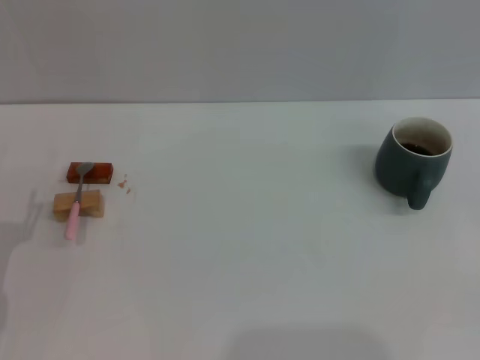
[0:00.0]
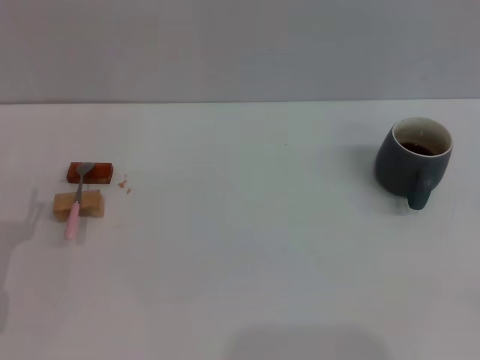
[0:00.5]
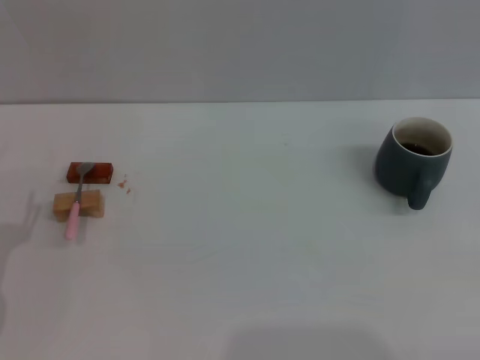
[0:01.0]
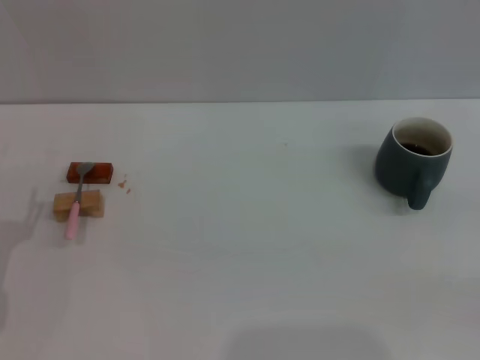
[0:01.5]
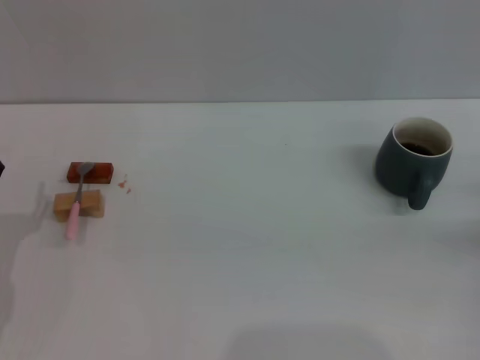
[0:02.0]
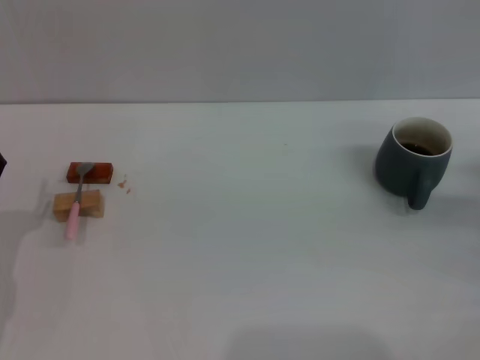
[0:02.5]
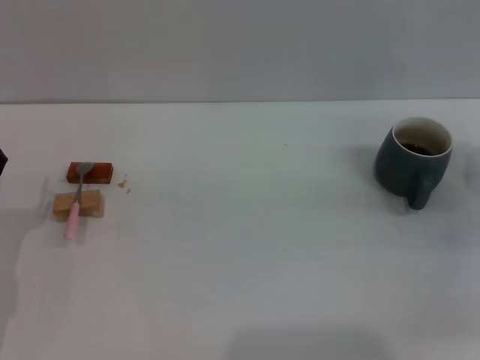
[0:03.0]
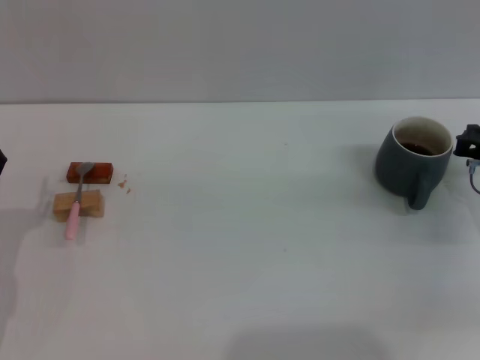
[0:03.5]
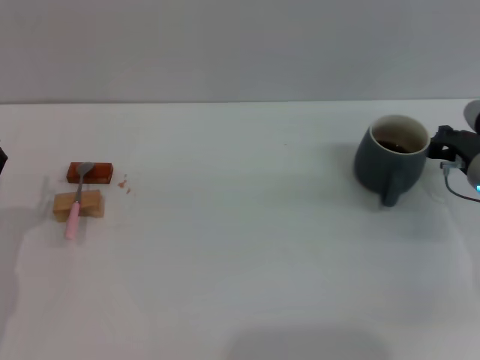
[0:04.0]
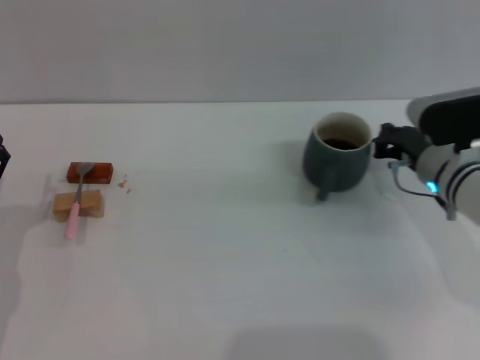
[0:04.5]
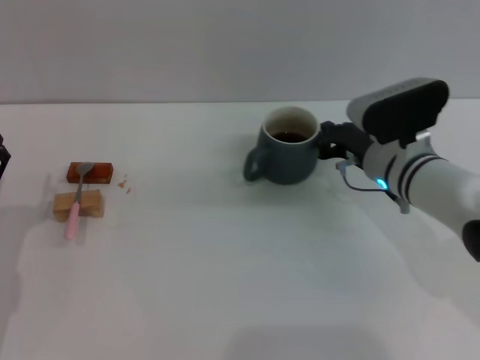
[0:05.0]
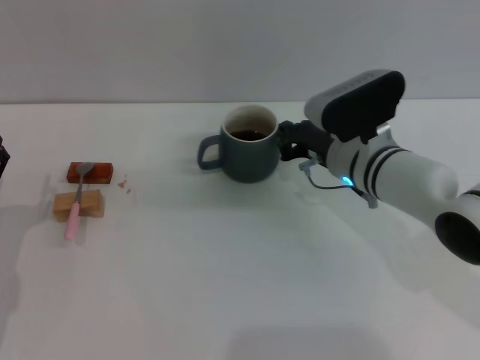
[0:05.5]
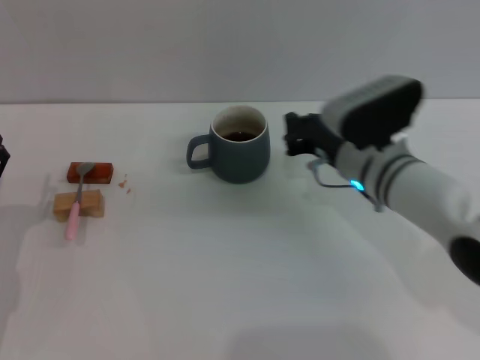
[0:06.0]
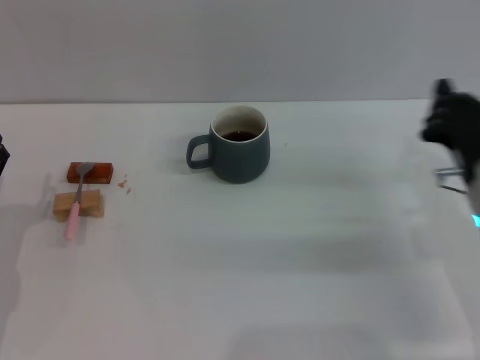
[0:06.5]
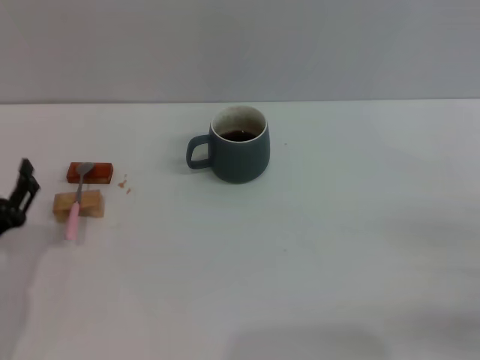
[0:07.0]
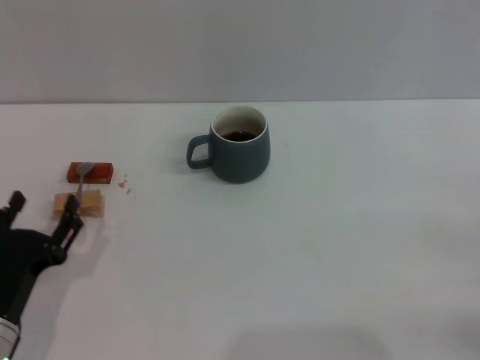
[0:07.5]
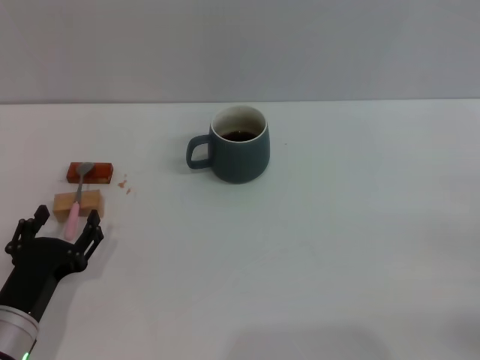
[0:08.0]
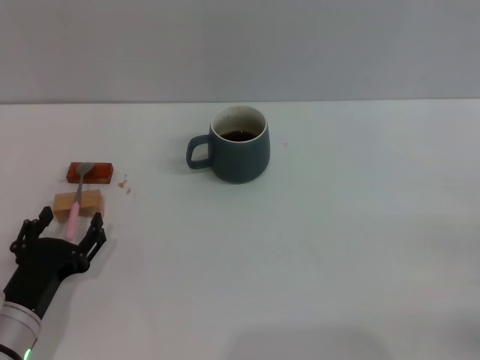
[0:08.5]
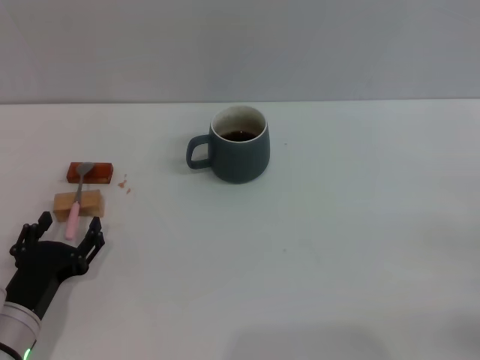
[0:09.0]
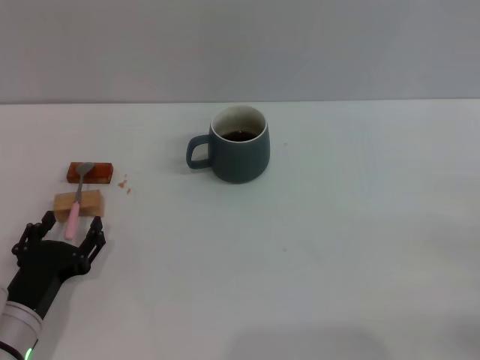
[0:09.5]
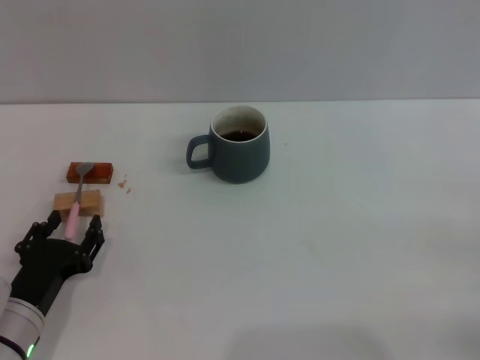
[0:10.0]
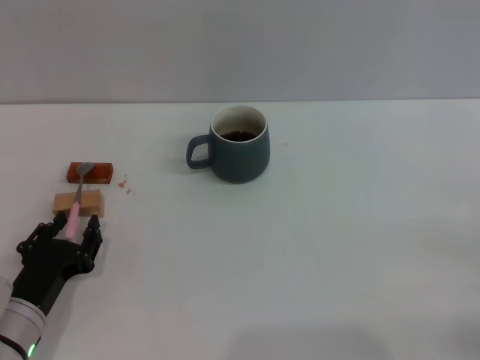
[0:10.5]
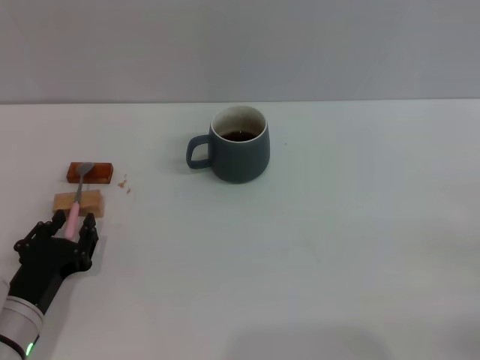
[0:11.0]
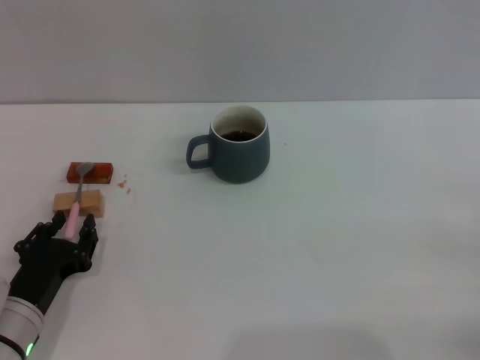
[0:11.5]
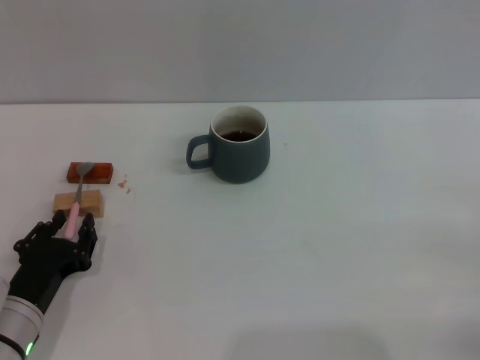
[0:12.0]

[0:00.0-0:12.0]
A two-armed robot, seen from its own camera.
Task of the whole recording: Move the grey cup to the center, lift the pink spoon, stir it three times in the cup, and put the spoon into the cup.
Step, 0:00.0 to 0:06.0: Move the cup with coffee to the center of view with the right gripper.
0:00.0 to 0:02.0: The right gripper travels forward by approximately 15 cm.
0:02.0 to 0:04.0: The right gripper shifts approximately 15 cm to the left and forward.
0:04.0 to 0:06.0: The right gripper travels to the left by approximately 15 cm.
0:06.0 to 0:08.0: The left gripper moves to the right, approximately 5 cm; the right gripper heads to the right and backward, covering some 25 cm.
0:08.0 to 0:10.0: The grippers make only small movements.
0:10.0 to 0:12.0: The two grippers keep their place.

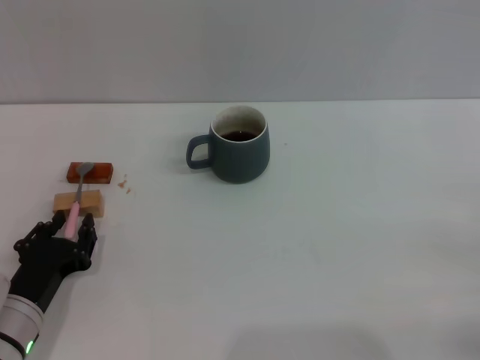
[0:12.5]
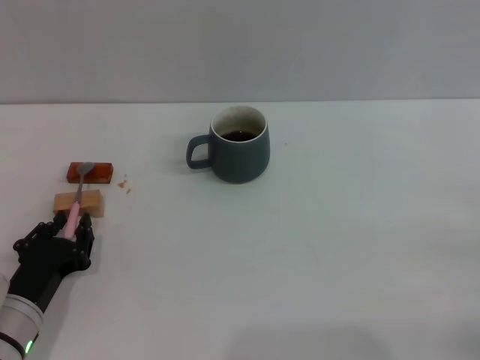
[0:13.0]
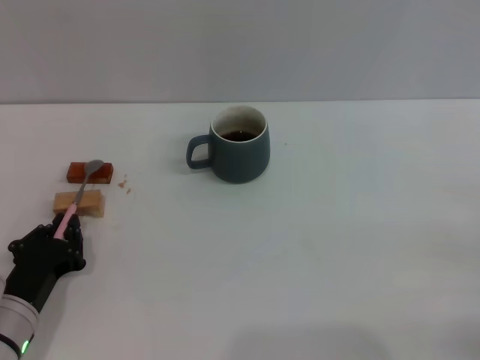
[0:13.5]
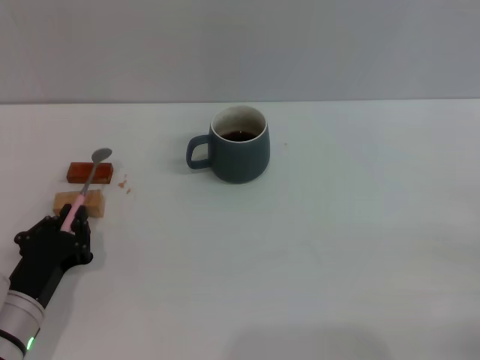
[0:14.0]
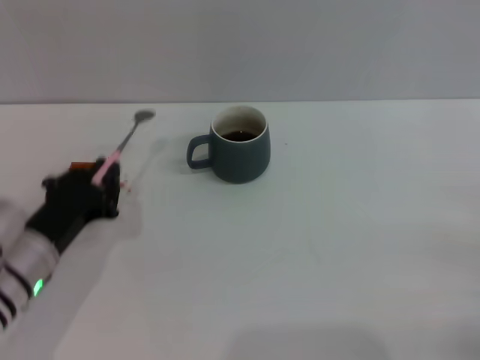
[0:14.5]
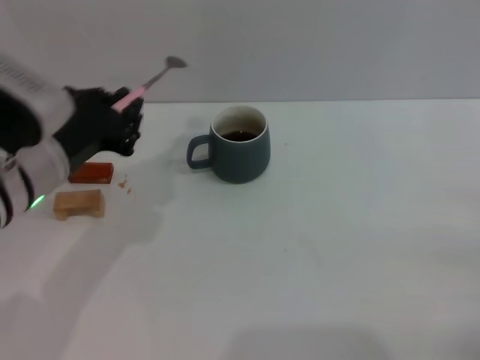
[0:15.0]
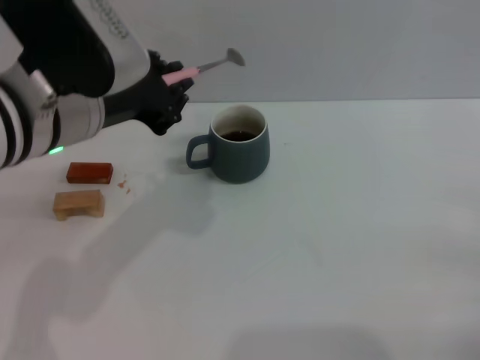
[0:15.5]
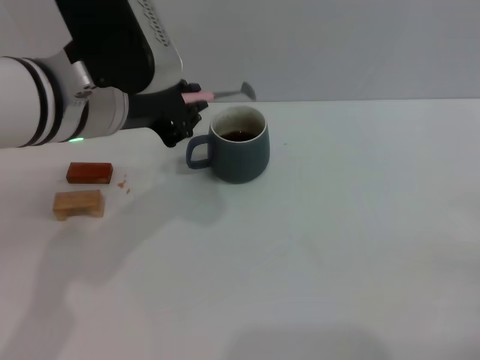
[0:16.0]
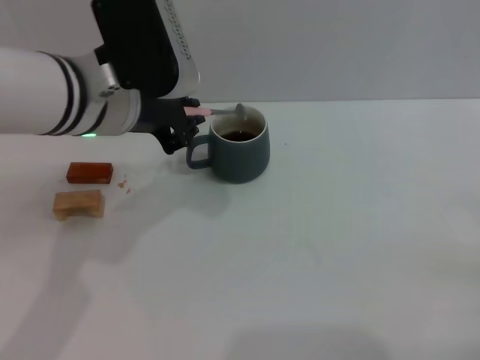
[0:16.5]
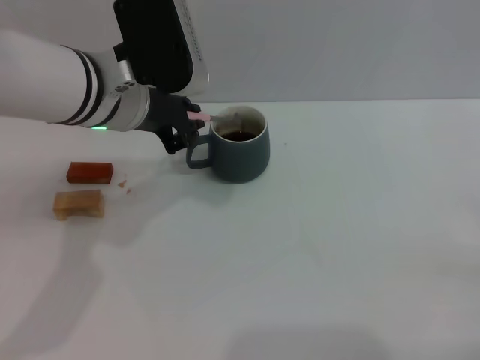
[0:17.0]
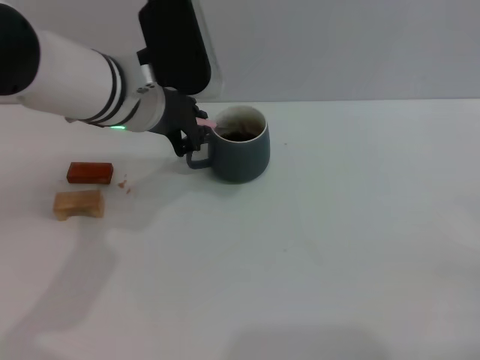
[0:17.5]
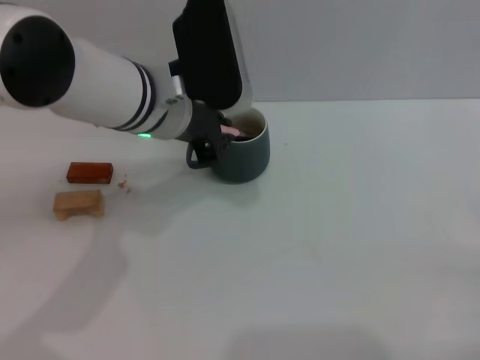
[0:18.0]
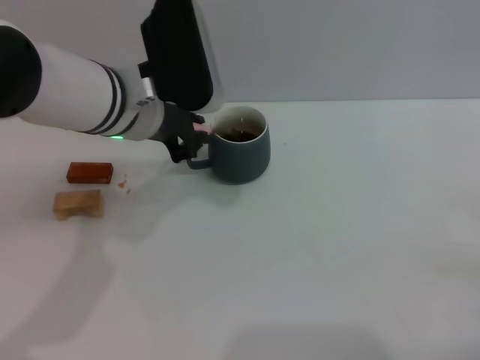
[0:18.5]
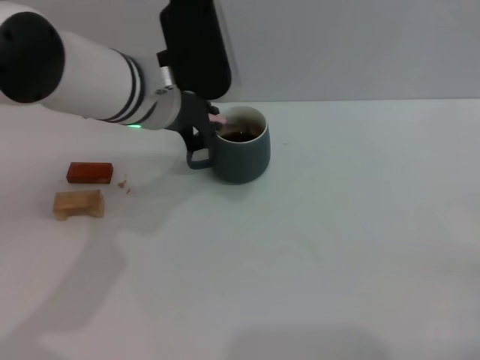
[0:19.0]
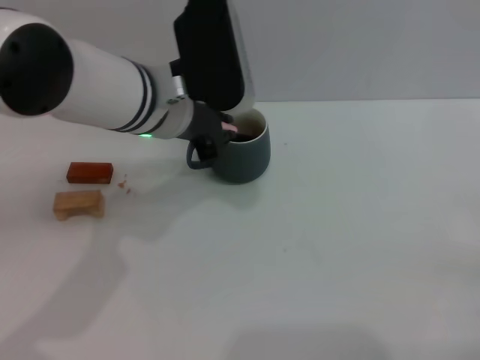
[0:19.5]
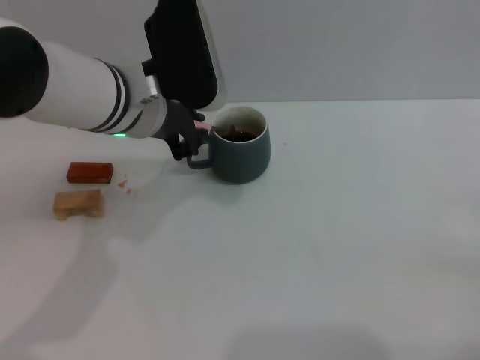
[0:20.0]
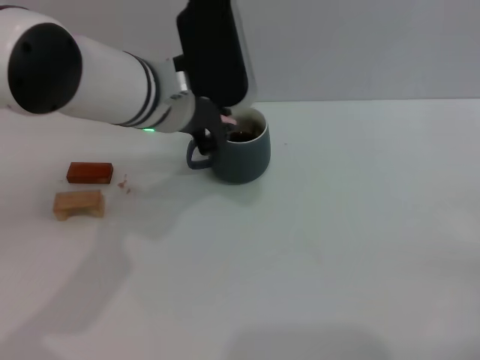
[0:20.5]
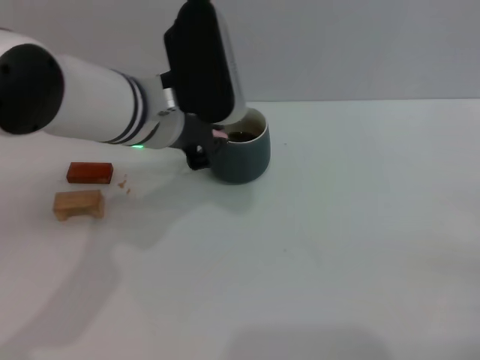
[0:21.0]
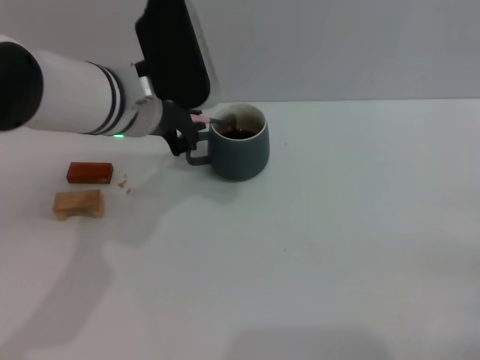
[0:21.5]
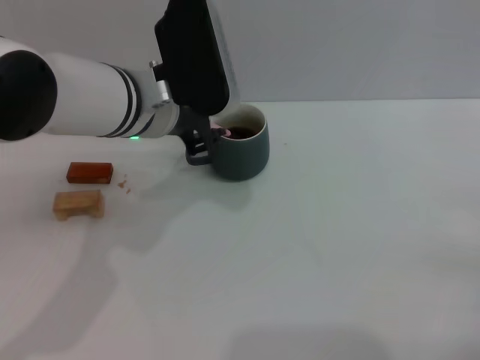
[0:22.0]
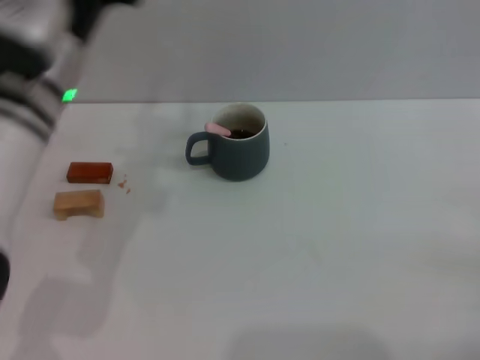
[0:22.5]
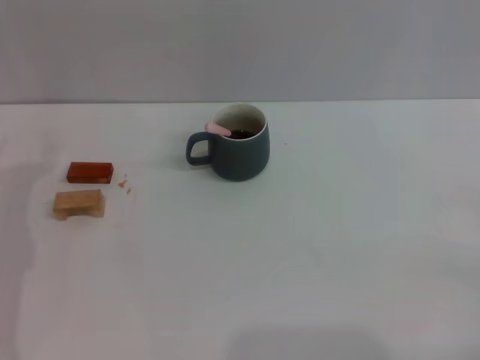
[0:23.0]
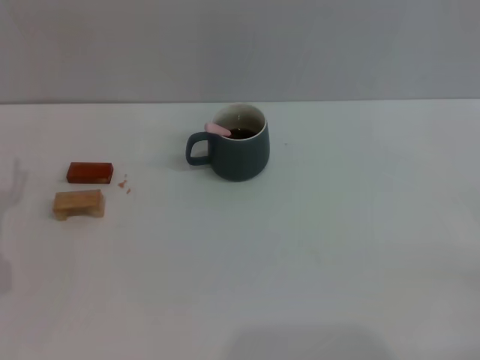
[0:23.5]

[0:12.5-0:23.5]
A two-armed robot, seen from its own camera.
Task of the whole recording: Move the grey cup to the center, lift the pink spoon, stir it three times in the cup, and put the spoon into the cup.
Step, 0:14.5 to 0:22.0: Stir the coffee in the cup with the left gripper.
0:12.5 to 0:14.5: The left gripper goes about 5 cm upward, and closes its fingers.
0:14.5 to 0:16.0: The left gripper heads upward and to the right, covering about 20 cm.
0:16.0 to 0:18.0: The left gripper shifts roughly 5 cm forward.
0:18.0 to 0:21.5: The grippers make only small movements.
0:21.5 to 0:23.5: The left gripper travels to the left, downward and backward by about 25 cm, and opens.

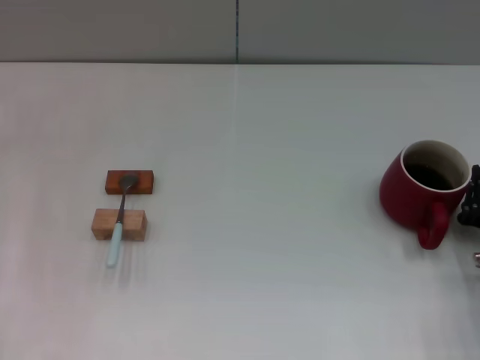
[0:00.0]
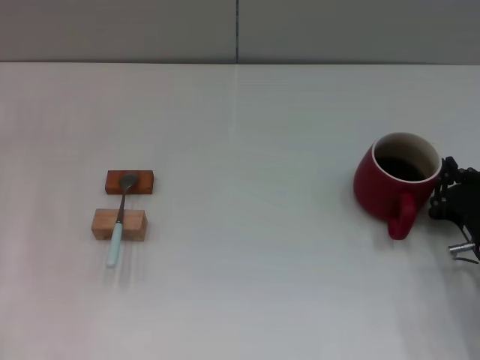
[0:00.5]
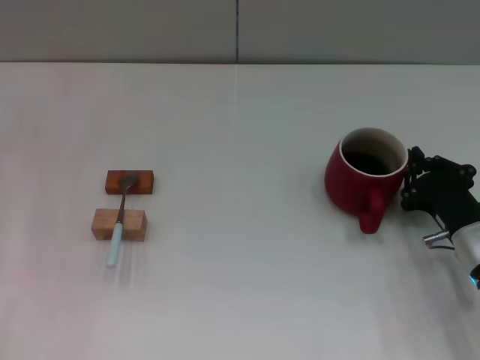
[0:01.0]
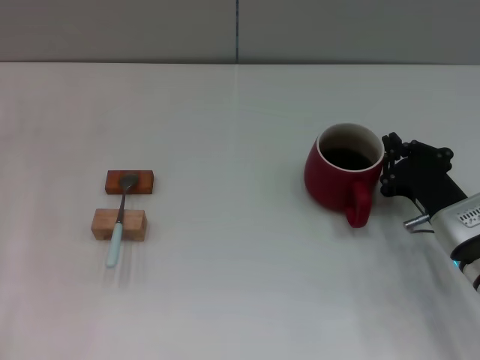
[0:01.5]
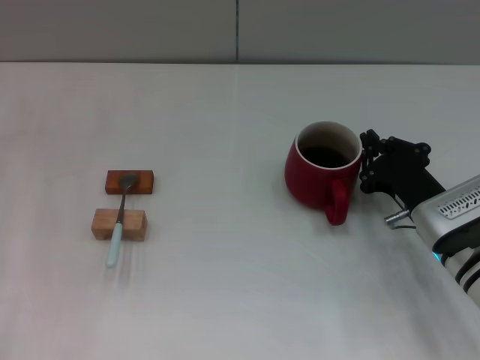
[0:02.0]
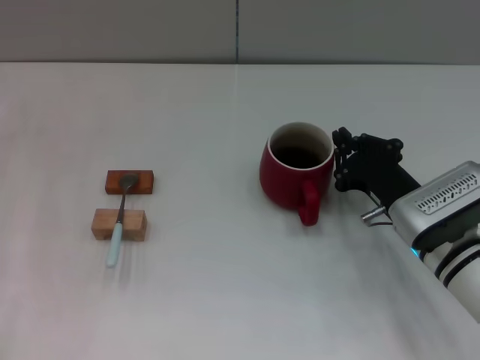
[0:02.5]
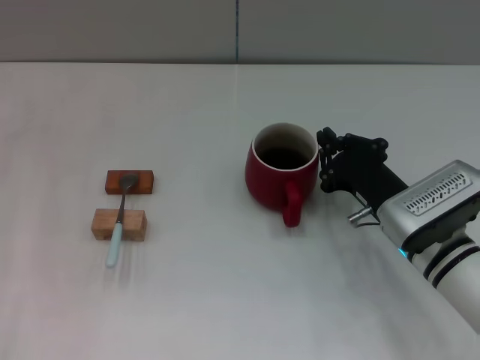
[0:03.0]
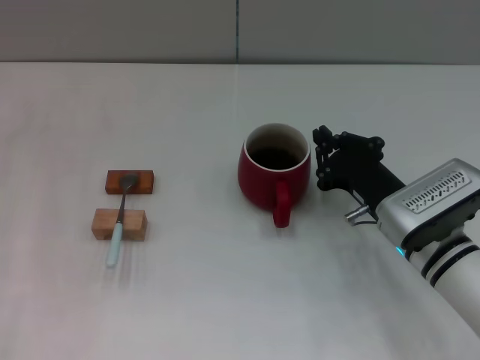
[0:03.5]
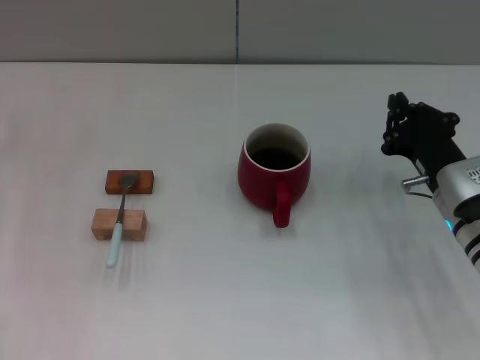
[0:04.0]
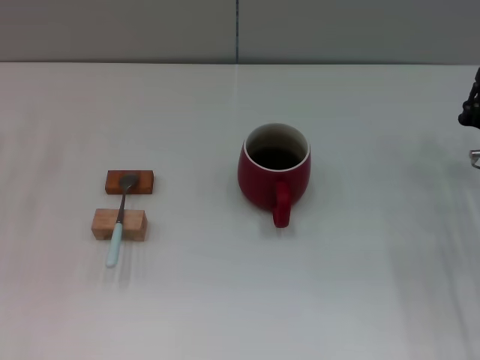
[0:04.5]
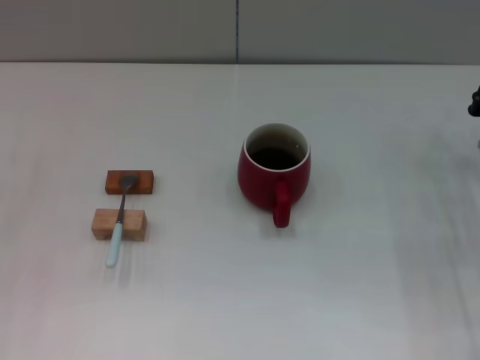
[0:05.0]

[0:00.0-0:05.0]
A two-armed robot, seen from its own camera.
Task of the whole recording: Move the red cup to the center, lift the blue spoon, stir it three times in the cup, and put the spoon into the cup.
Step, 0:00.0 to 0:03.5: Move the cup with coffee to the center of view with the right gripper.
0:00.0 to 0:02.5: The right gripper shifts approximately 10 cm to the left and forward.
0:02.5 to 0:05.0: The left gripper goes approximately 10 cm backward and downward. The right gripper is displaced to the right by approximately 10 cm.
